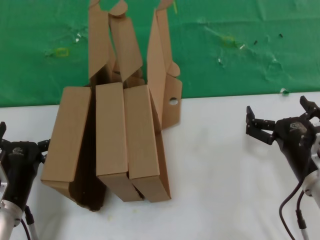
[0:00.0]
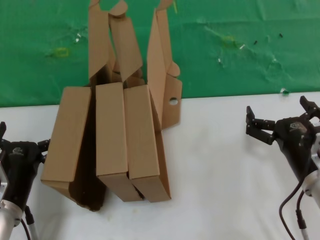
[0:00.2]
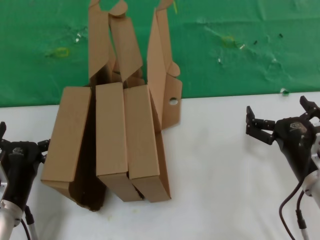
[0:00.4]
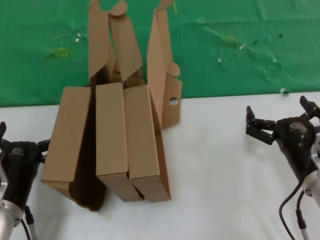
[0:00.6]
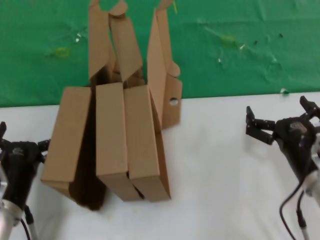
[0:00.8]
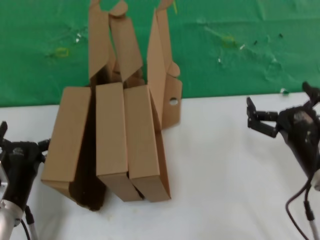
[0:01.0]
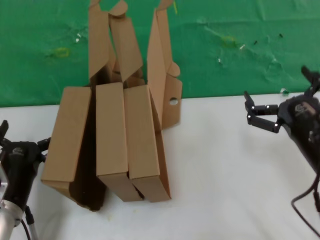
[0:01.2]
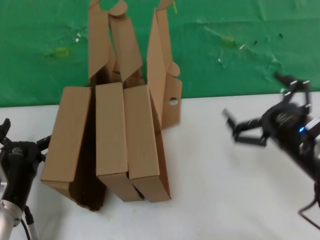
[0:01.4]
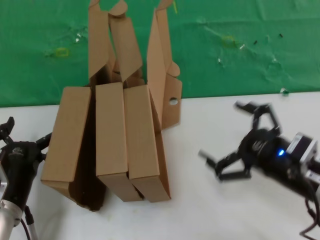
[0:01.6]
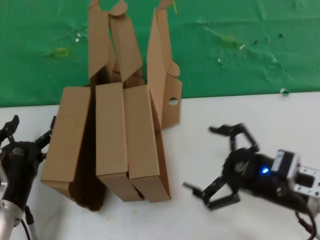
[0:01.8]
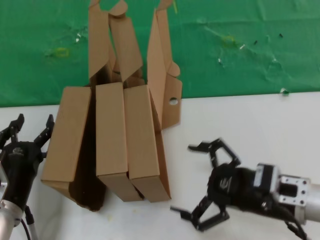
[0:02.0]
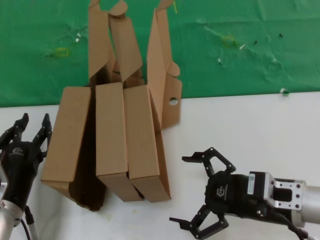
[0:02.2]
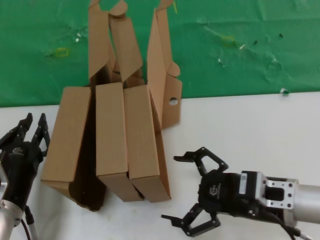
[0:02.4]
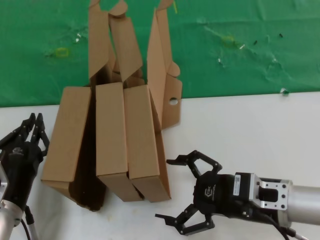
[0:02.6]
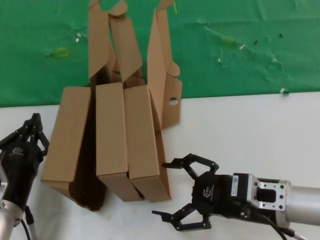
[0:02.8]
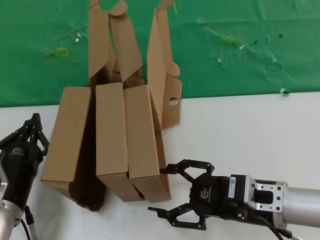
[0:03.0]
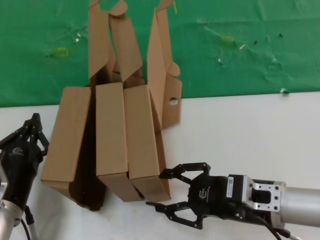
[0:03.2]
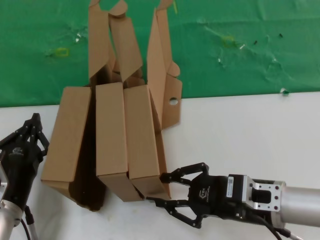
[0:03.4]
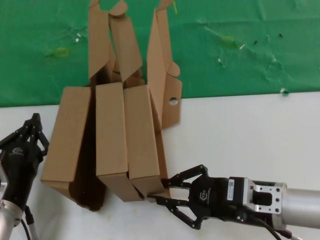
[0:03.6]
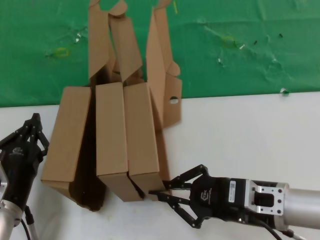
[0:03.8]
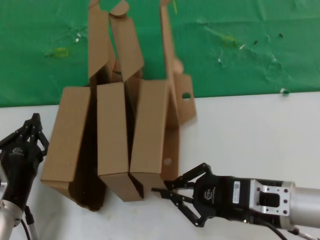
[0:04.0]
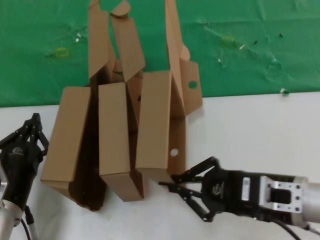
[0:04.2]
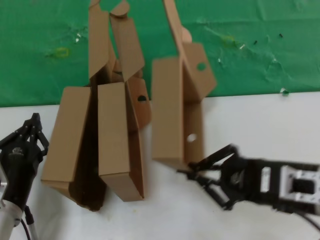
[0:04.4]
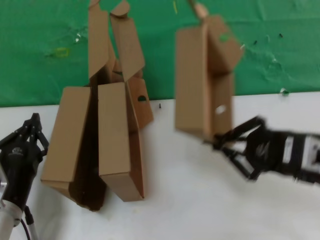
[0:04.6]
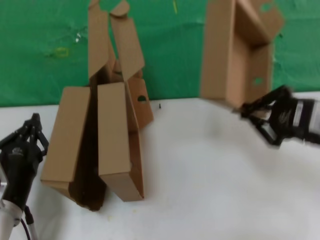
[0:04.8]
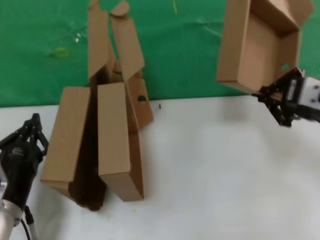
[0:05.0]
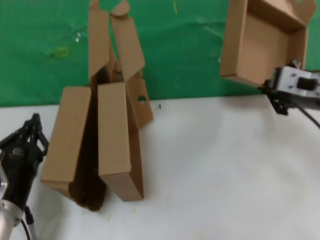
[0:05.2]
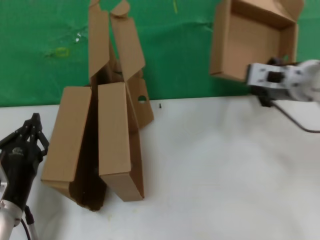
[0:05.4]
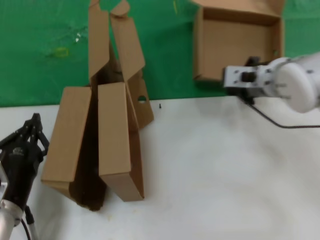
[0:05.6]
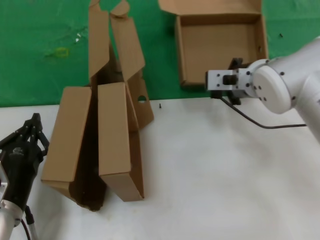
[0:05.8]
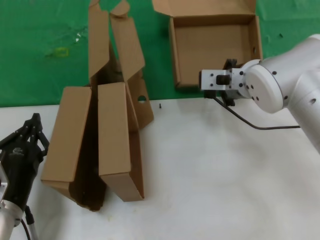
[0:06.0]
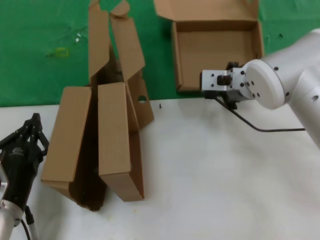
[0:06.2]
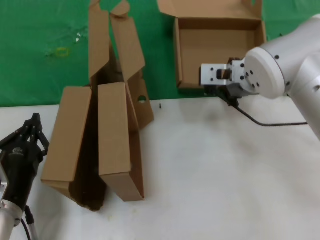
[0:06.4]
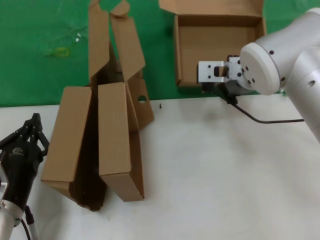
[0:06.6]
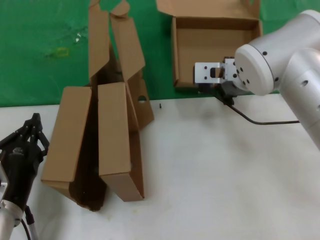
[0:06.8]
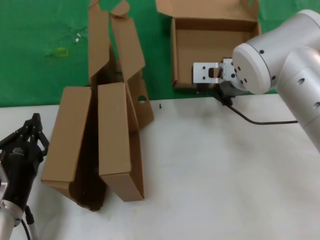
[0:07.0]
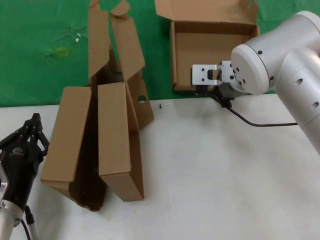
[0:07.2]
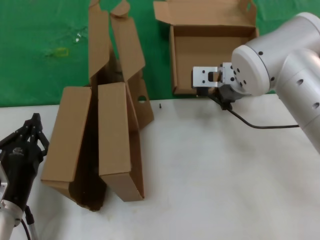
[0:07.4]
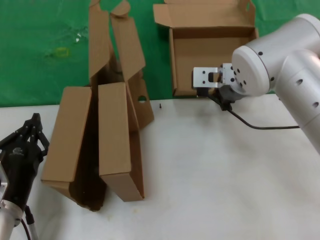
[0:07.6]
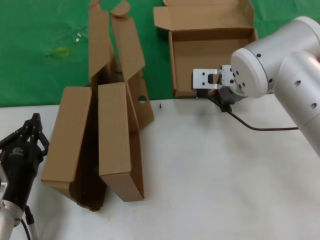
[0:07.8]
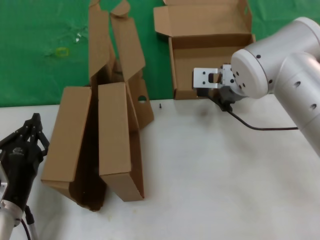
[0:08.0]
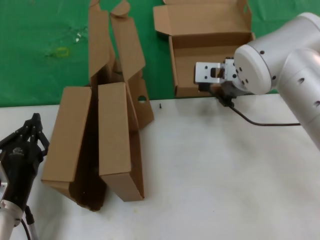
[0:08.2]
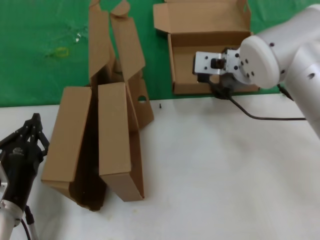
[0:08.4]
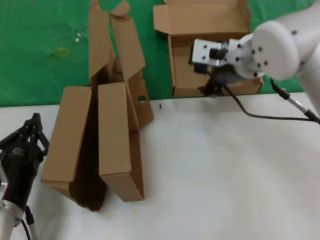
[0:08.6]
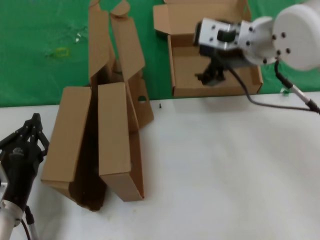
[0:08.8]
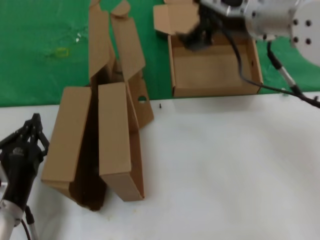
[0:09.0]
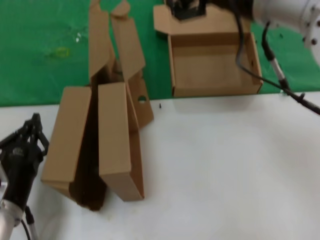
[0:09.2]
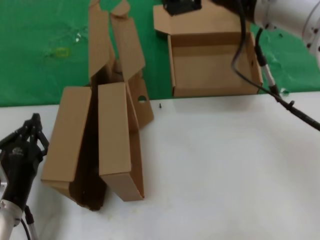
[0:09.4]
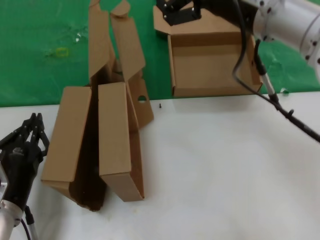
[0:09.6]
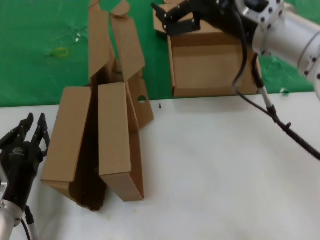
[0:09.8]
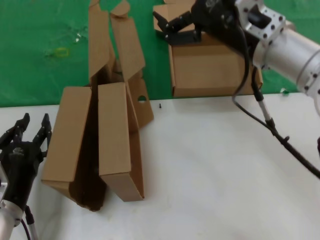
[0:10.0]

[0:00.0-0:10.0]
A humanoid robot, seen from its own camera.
Task of the whole recording: pick up the paper box and put it at the back.
Step, 0:00.0 to 0:04.0: Grasp the paper box.
Step, 0:04.2 to 0:08.4: Place the paper box on the table.
0:00.0 to 0:01.4: The right hand heads upward, covering roughly 5 cm.
0:01.4 to 0:02.8: The right hand moves to the left, about 5 cm.
0:02.8 to 0:04.2: The hands stay close to where they were, moving slightly.
0:04.2 to 0:05.8: The right hand moves forward, roughly 20 cm.
0:05.8 to 0:07.2: The hands make only small movements.
0:07.2 to 0:08.6: The hands stay close to where they were, moving slightly.
0:08.6 to 0:10.0: The right hand goes roughly 5 cm backward.

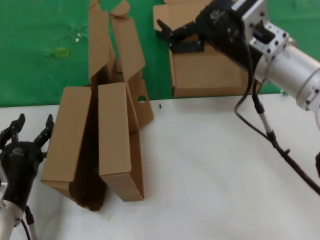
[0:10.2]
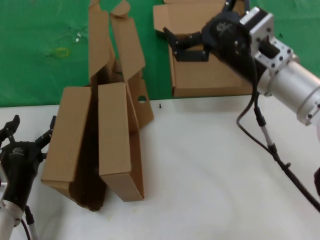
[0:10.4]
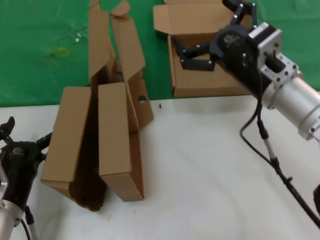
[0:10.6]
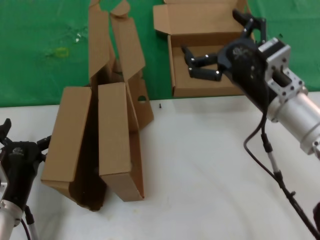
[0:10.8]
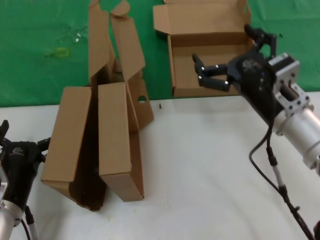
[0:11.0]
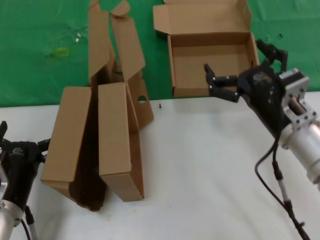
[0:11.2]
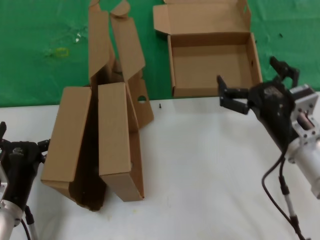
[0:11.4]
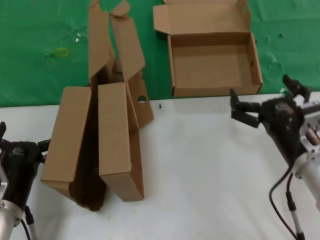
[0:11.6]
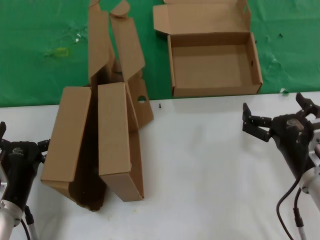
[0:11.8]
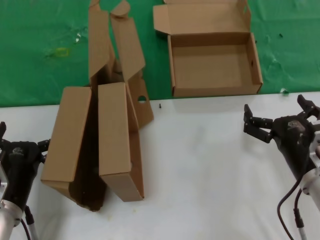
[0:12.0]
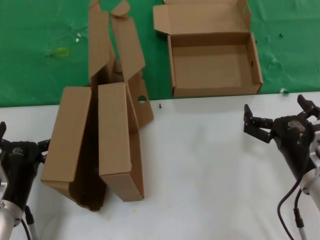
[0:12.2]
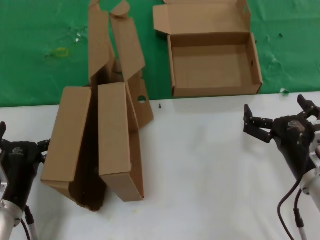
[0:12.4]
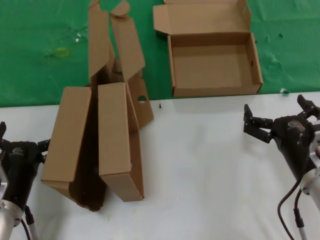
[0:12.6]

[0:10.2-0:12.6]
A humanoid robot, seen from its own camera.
Task of the whole recording: pick up the paper box and put it at the back.
0:10.2 to 0:11.4: The right hand heads downward, covering about 15 cm.
0:11.4 to 0:12.6: The right hand moves downward, about 5 cm.
